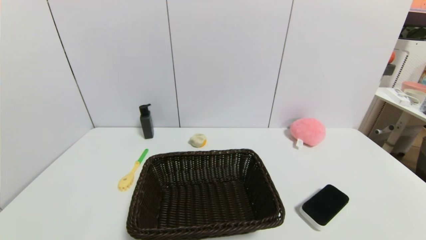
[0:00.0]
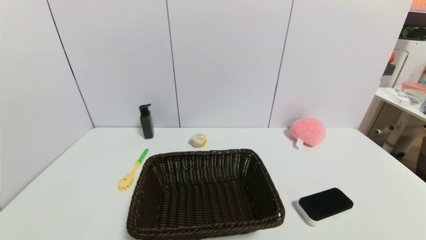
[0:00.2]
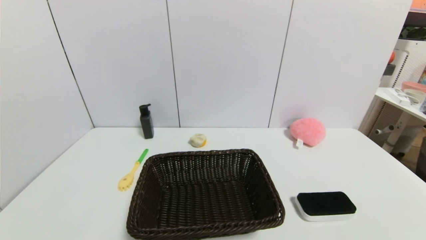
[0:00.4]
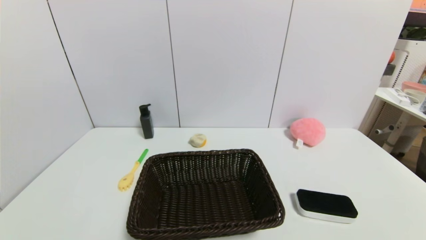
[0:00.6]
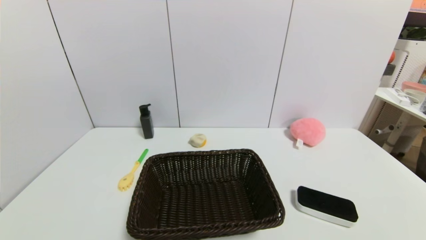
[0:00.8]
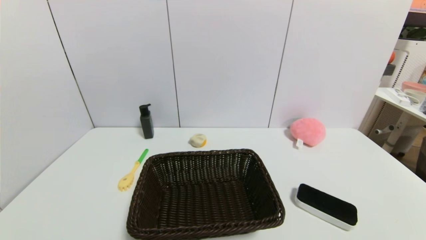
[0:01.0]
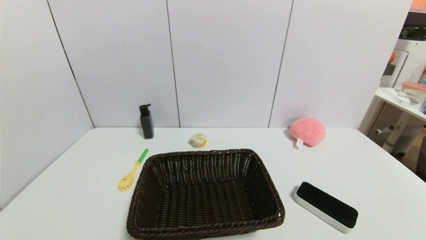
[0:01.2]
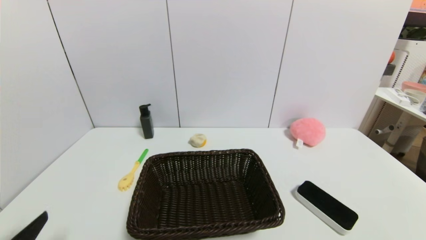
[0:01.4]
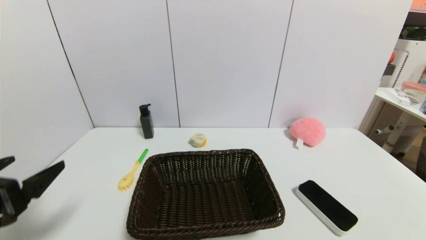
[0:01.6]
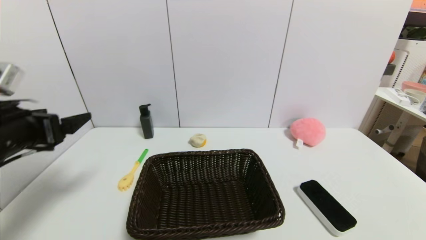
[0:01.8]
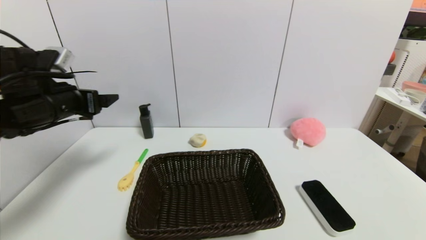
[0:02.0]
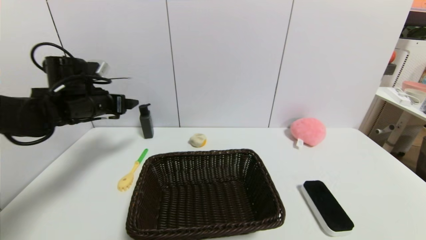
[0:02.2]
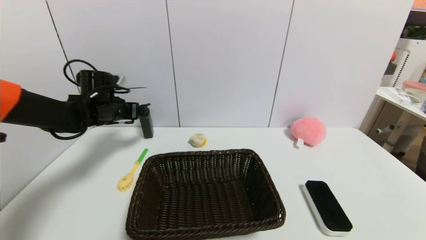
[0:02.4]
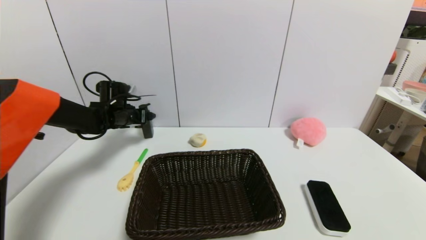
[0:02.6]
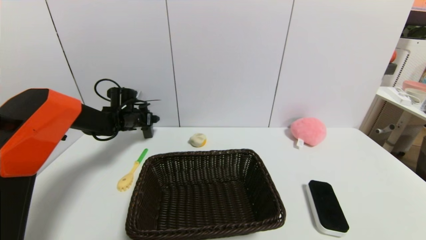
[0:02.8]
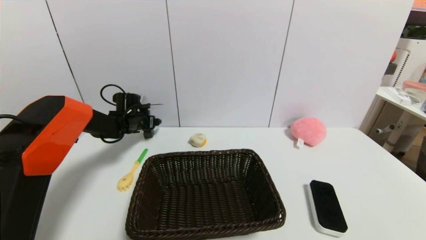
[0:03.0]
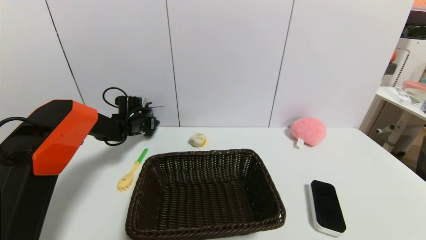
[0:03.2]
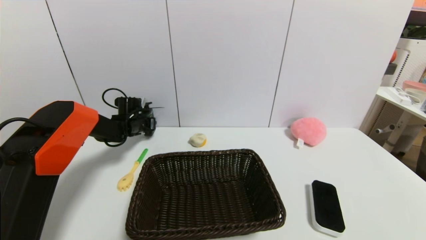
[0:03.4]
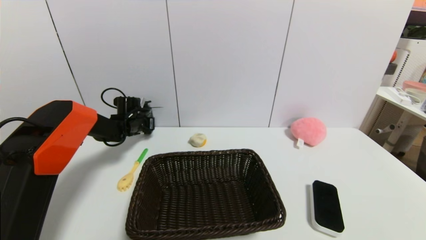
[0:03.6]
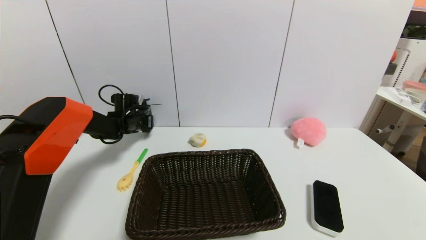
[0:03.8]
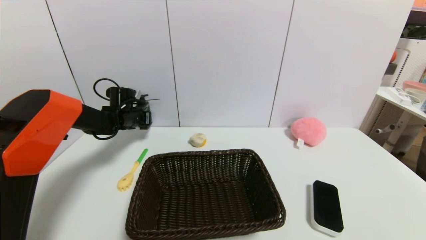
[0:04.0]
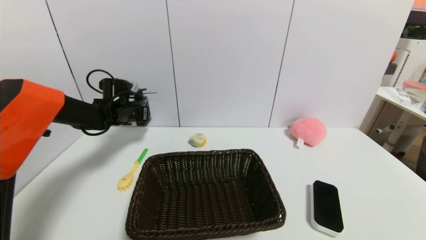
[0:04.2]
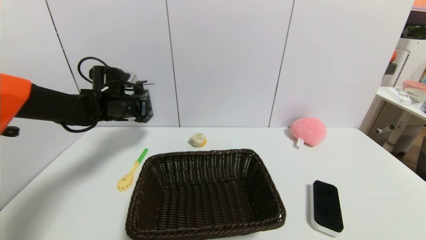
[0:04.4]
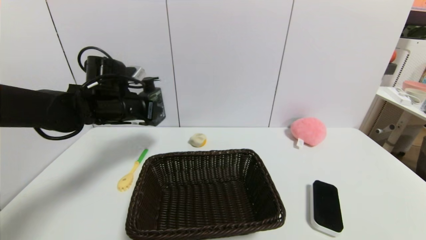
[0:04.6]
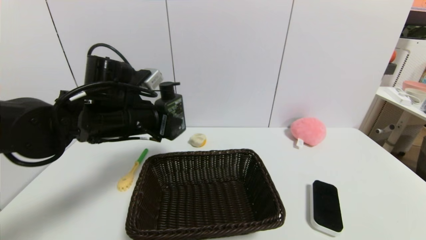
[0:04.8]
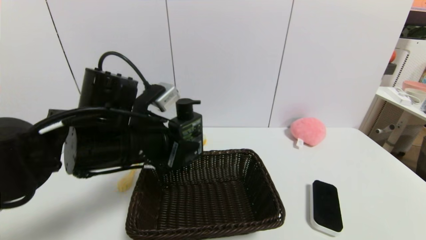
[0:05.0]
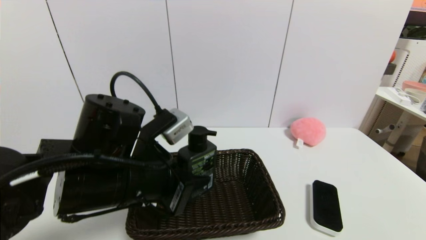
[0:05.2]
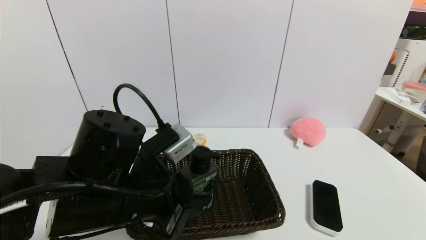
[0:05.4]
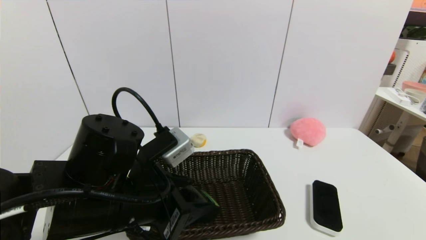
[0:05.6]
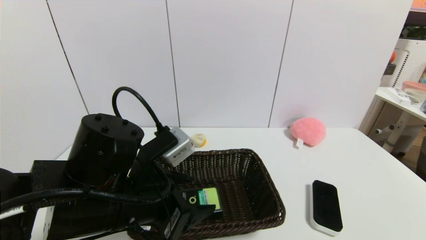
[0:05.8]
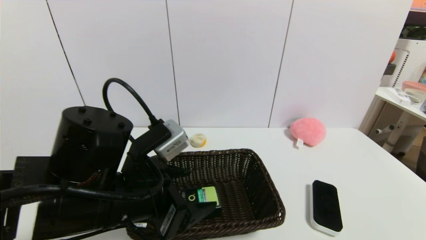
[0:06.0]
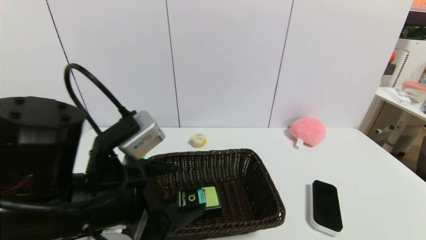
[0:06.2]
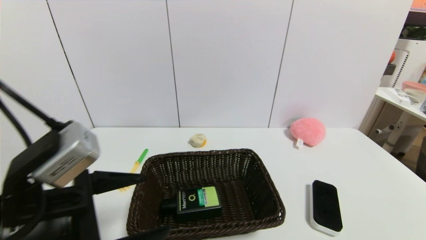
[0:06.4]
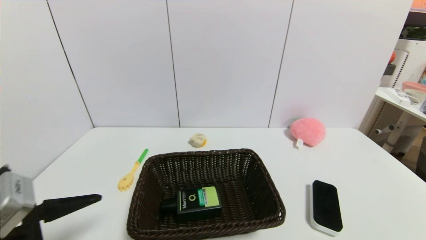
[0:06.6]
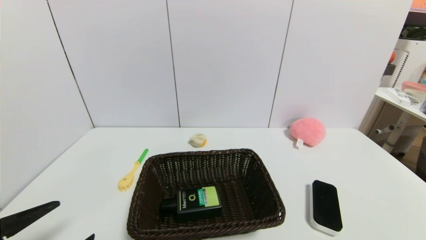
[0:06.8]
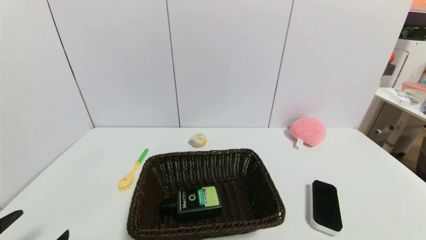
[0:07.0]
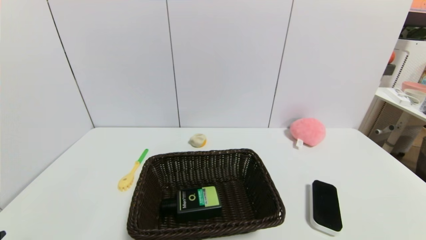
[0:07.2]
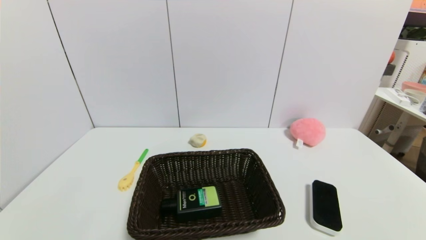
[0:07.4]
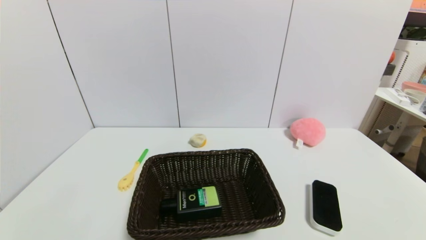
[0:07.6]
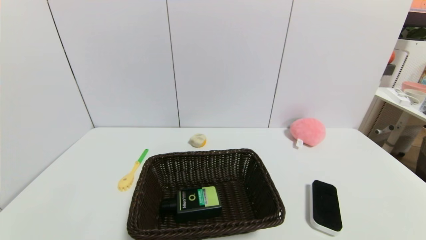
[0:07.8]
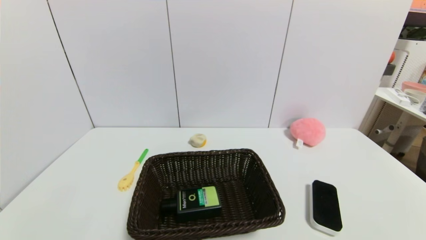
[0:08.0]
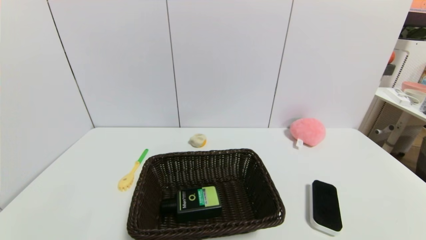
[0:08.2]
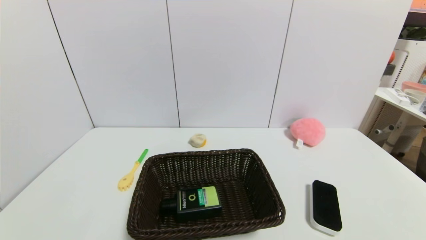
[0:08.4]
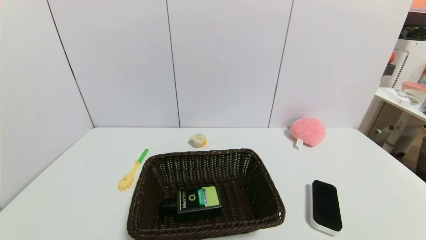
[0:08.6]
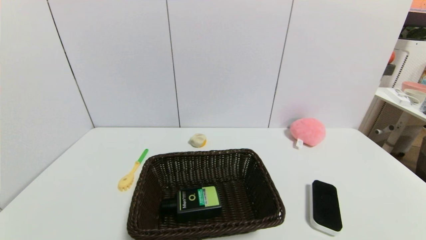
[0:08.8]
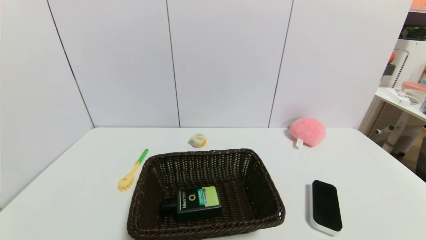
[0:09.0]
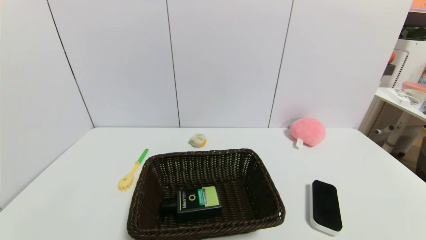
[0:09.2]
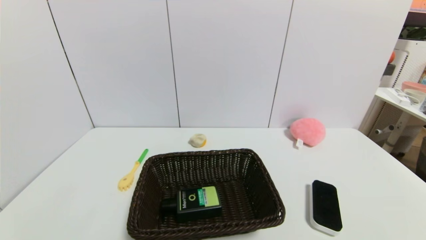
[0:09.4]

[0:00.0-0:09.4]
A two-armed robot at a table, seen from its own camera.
Task of the whole recording: use a gripper to pick the target object and place on the brown basket.
Step, 0:00.0 to 0:03.4: Grasp the hard facial cleanser with the left gripper.
Step, 0:03.6 to 0:06.4: Place the hard facial cleanser into the basket with the left gripper.
0:00.0 to 0:01.6: The left gripper goes roughly 15 cm upward and forward.
0:01.6 to 0:03.2: The left gripper is displaced forward by approximately 40 cm, and closes up.
0:03.2 to 0:04.8: The left gripper shifts approximately 30 cm backward, upward and to the right, and closes up.
0:04.8 to 0:06.2: The left gripper is displaced backward by approximately 15 cm, and opens up.
0:06.2 to 0:07.8: The left gripper travels backward, to the left and downward by about 25 cm.
0:07.8 to 0:09.4: Neither gripper changes place.
